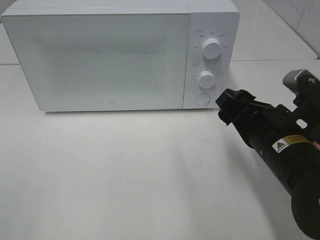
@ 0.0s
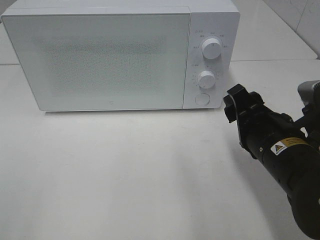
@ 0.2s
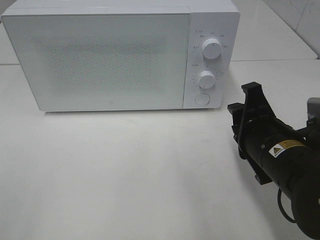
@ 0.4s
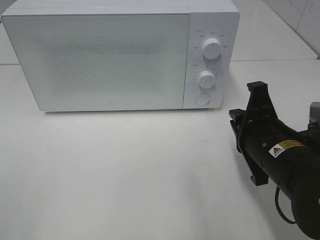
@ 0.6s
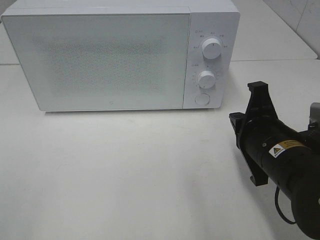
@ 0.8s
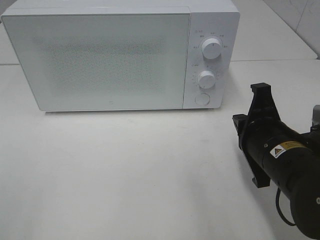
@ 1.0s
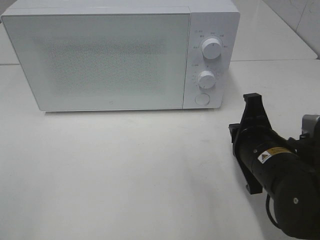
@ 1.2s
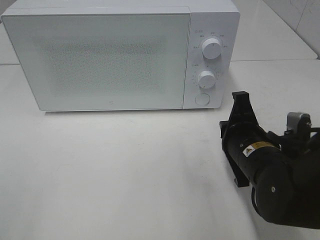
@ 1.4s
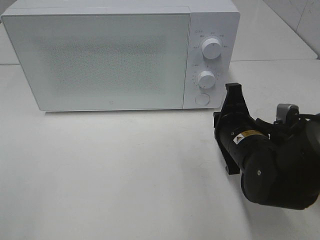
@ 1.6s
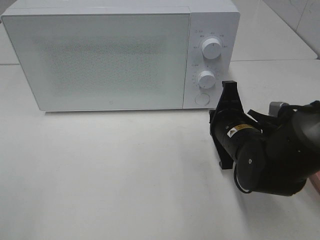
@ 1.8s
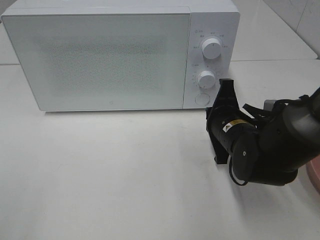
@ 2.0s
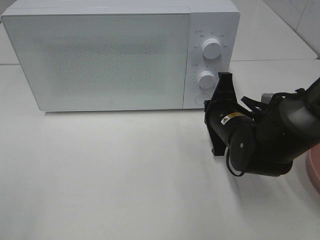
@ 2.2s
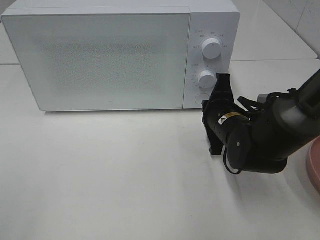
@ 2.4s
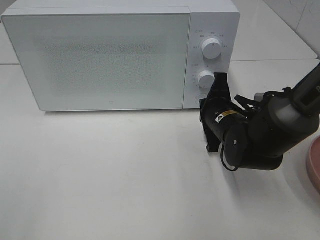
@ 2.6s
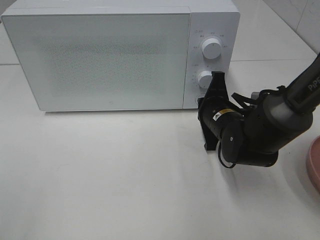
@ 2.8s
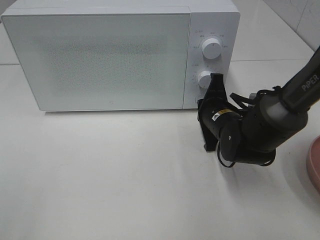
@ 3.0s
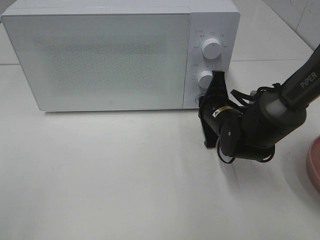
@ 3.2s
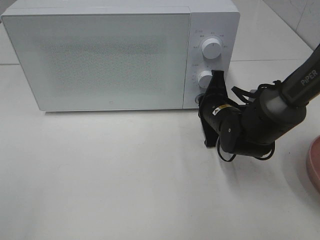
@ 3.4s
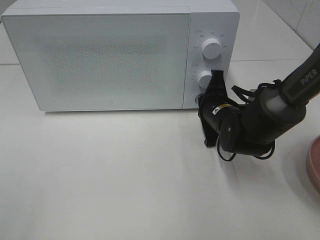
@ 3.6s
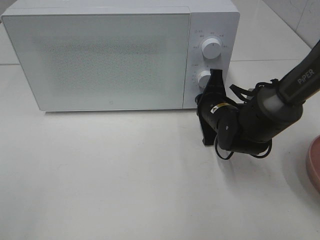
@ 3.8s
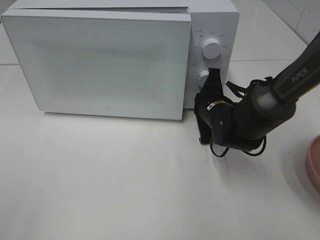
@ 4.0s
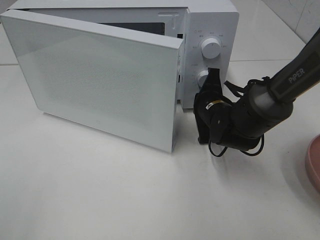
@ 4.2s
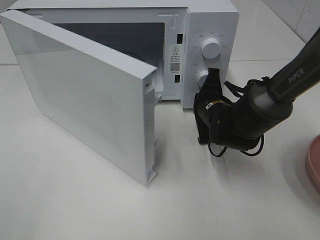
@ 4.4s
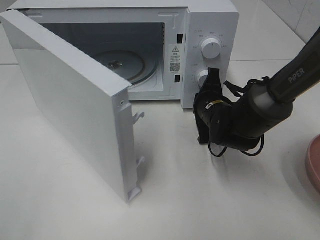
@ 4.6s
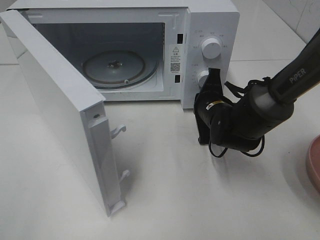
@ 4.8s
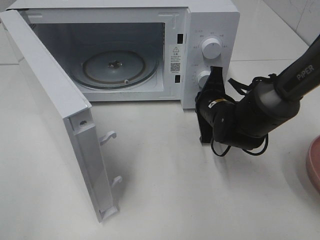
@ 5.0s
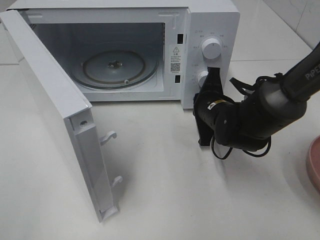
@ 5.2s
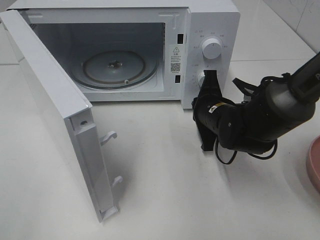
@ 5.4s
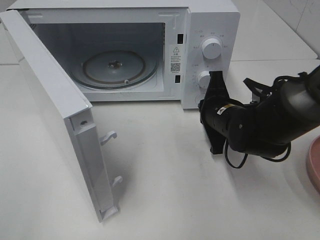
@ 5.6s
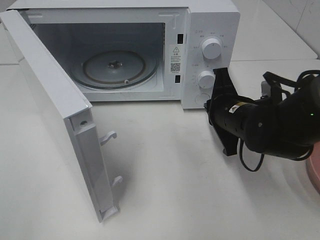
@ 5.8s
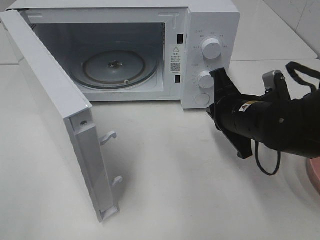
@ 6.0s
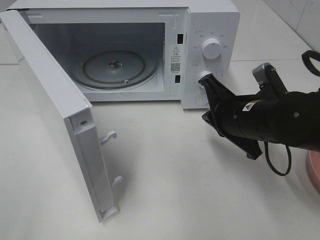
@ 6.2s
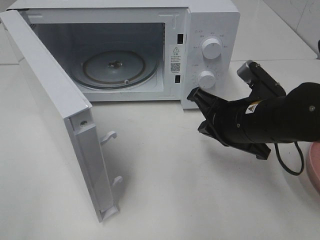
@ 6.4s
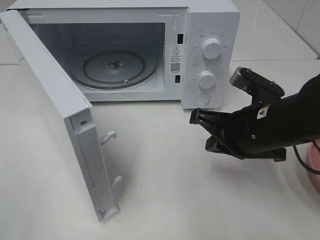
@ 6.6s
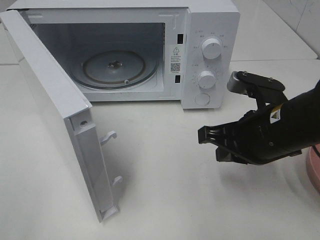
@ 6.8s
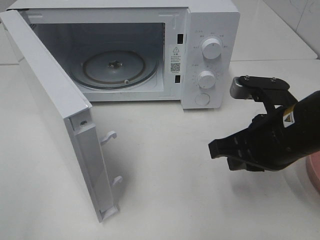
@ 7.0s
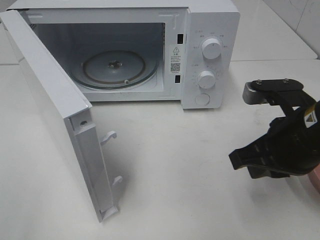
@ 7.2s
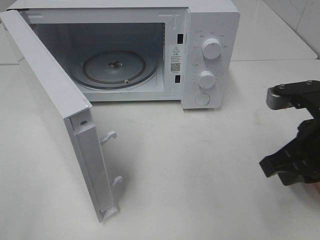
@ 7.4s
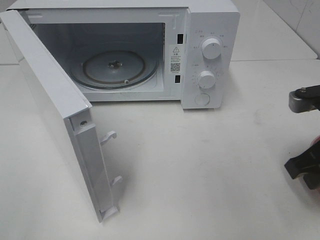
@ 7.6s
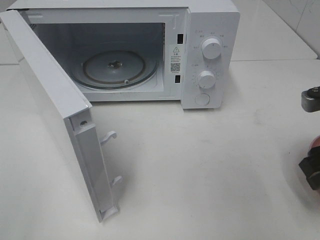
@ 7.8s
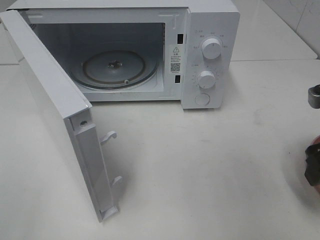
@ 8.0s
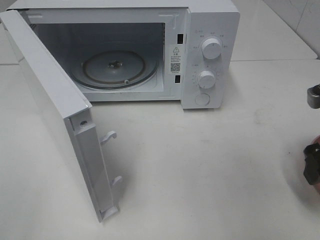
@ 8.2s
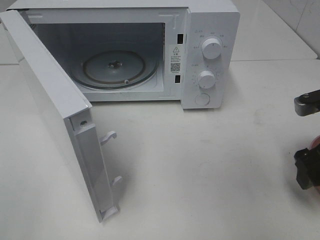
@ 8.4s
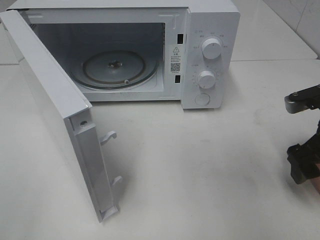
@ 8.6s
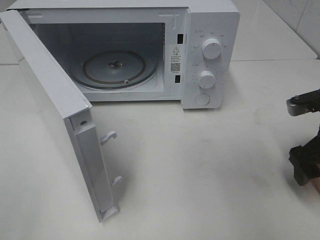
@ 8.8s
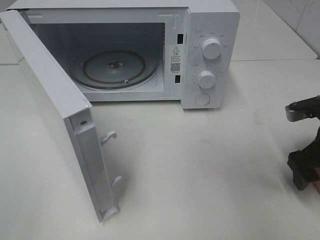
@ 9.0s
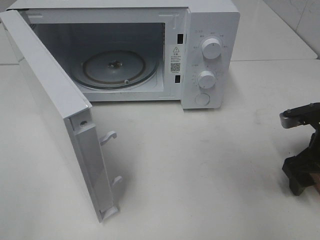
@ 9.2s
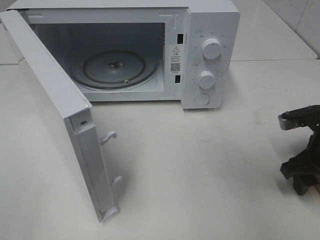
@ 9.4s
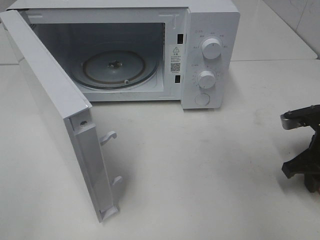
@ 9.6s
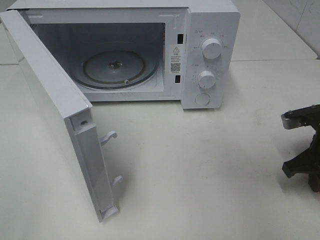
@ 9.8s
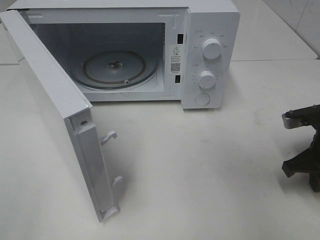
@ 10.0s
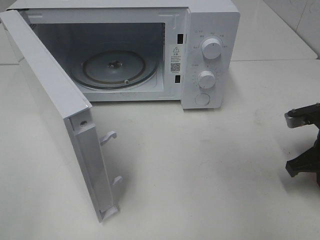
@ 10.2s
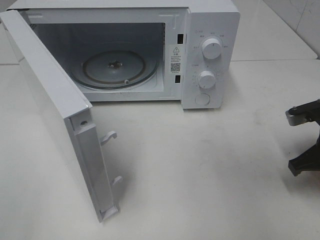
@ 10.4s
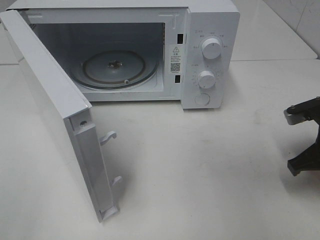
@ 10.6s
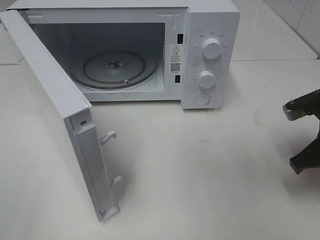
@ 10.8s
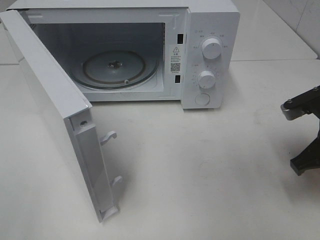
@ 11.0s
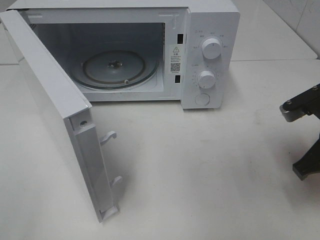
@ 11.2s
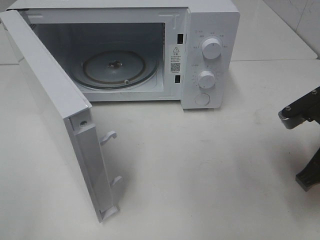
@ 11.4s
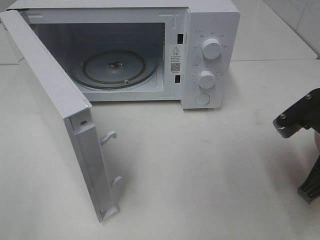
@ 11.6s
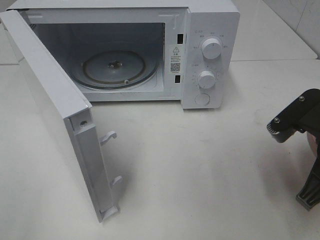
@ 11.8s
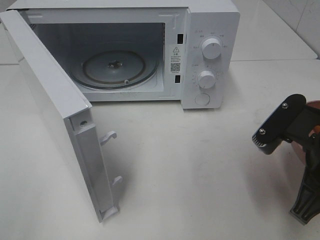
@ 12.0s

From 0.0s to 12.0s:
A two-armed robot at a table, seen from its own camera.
Task of the whole recording: Heat the burger.
Step, from 0.0s to 5.4s: Right hand: press the switch.
Step, from 5.6s to 11.2s: Right hand: grab the plate with the hamburger.
From 0.0s to 1.6s: The right gripper moves some 5 cm, and closes its fingers.
From 1.6s to 3.0s: The right gripper travels forward by approximately 10 cm.
From 4.4s to 6.0s: The right gripper is displaced backward and upward by some 10 cm.
From 6.0s to 7.6s: The right gripper heads to the right, backward and upward, covering approximately 15 cm.
From 7.6s to 9.0s: The right gripper shifts roughly 10 cm downward and forward, and opens.
From 9.0s to 10.4s: The right gripper closes up.
From 10.4s to 12.0s: The right gripper moves backward, to the left and upward, about 15 cm.

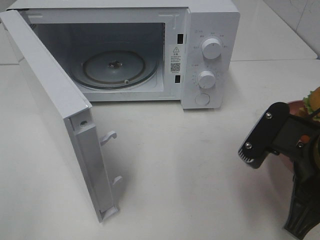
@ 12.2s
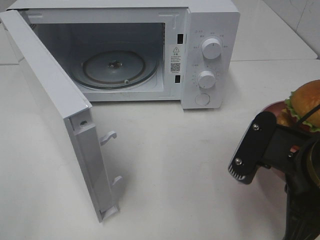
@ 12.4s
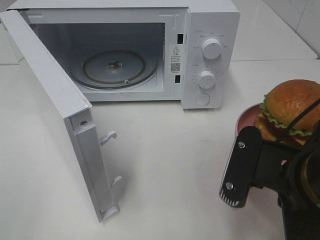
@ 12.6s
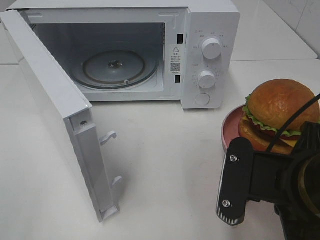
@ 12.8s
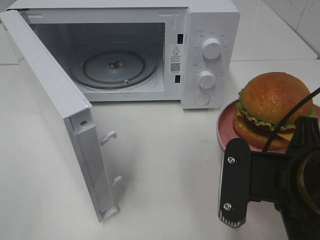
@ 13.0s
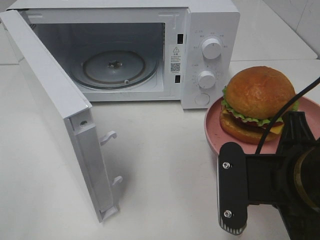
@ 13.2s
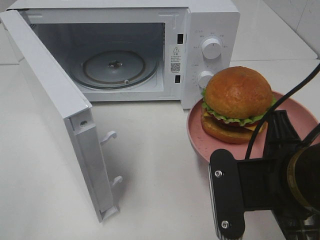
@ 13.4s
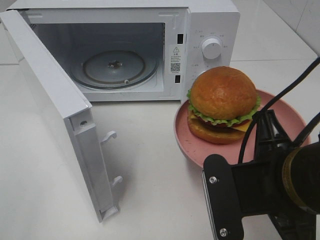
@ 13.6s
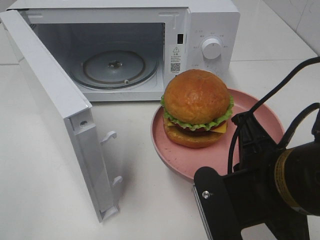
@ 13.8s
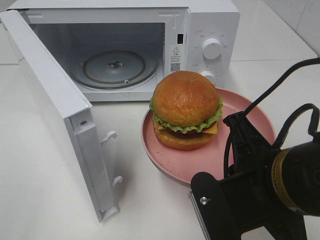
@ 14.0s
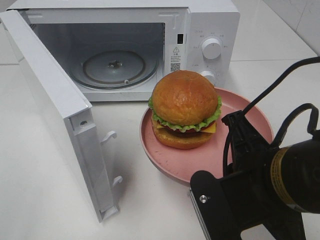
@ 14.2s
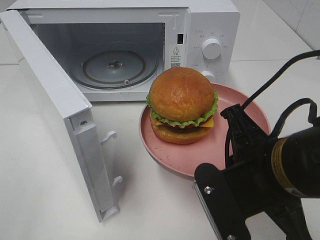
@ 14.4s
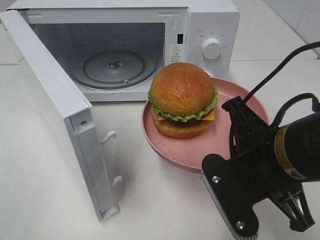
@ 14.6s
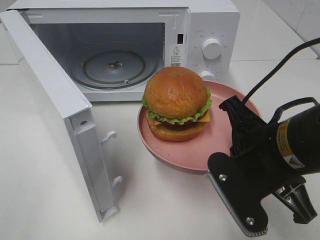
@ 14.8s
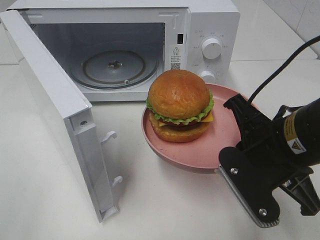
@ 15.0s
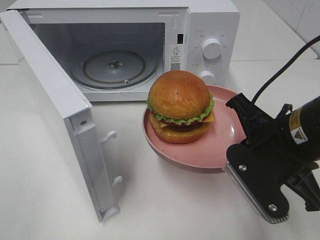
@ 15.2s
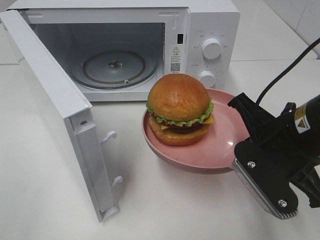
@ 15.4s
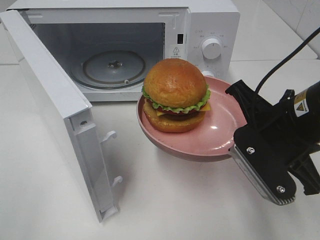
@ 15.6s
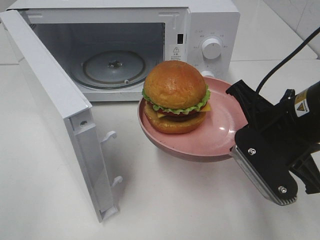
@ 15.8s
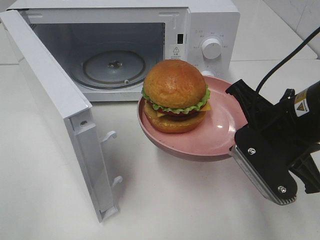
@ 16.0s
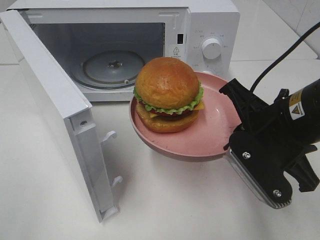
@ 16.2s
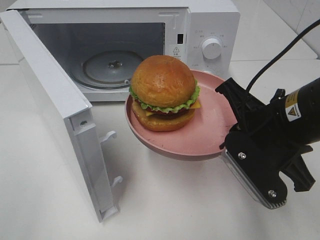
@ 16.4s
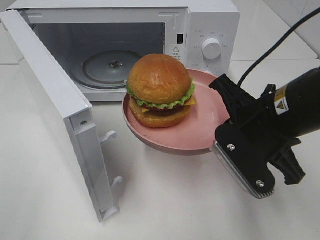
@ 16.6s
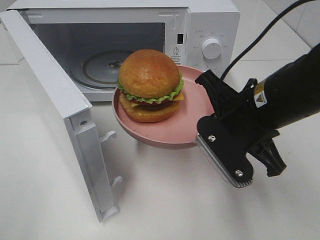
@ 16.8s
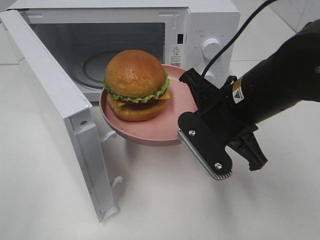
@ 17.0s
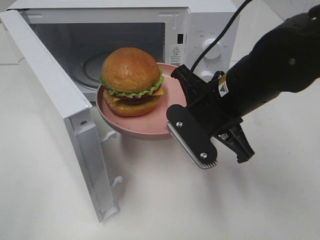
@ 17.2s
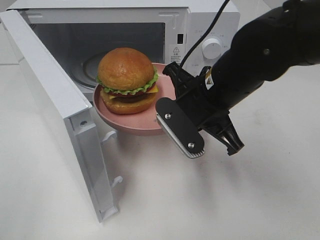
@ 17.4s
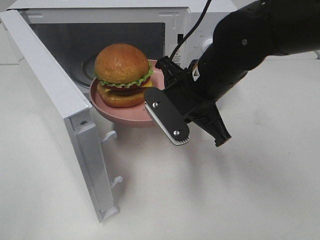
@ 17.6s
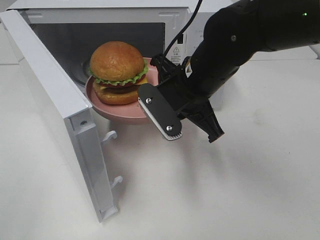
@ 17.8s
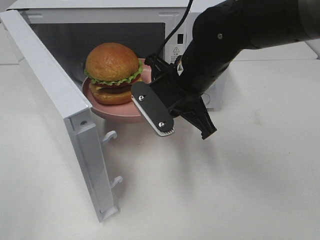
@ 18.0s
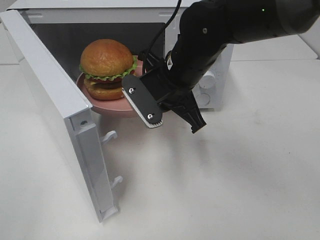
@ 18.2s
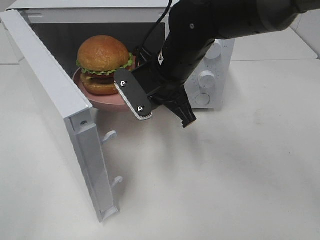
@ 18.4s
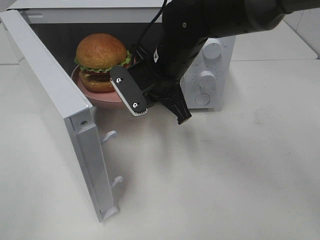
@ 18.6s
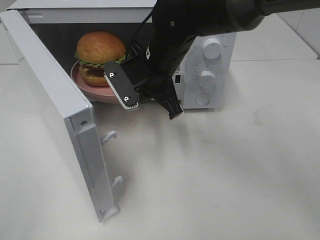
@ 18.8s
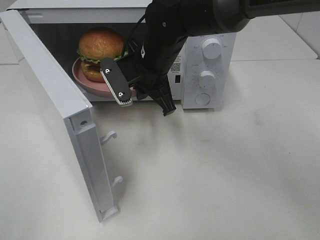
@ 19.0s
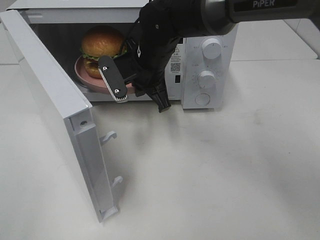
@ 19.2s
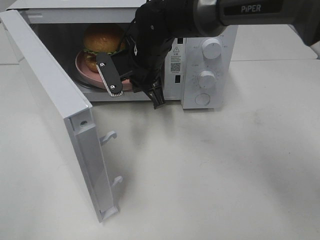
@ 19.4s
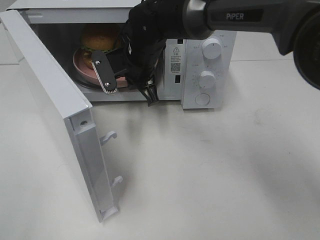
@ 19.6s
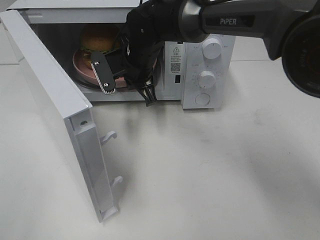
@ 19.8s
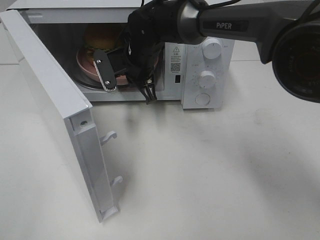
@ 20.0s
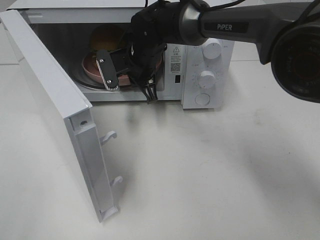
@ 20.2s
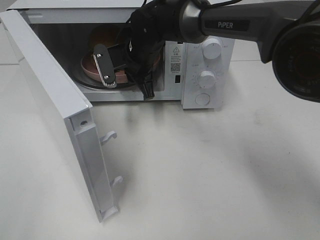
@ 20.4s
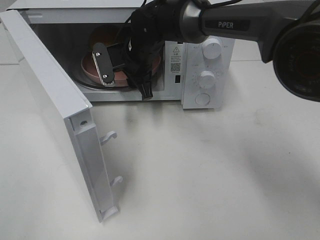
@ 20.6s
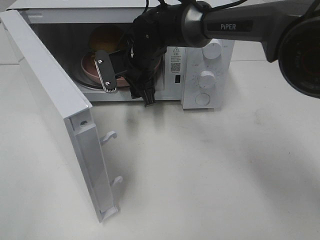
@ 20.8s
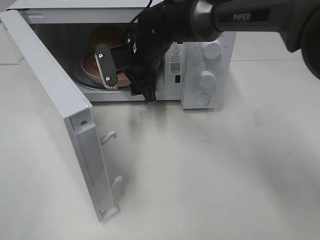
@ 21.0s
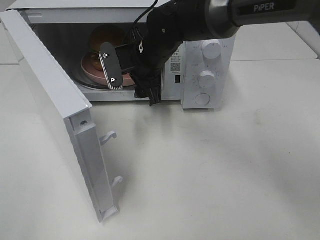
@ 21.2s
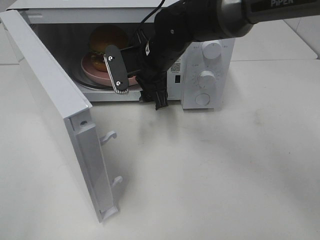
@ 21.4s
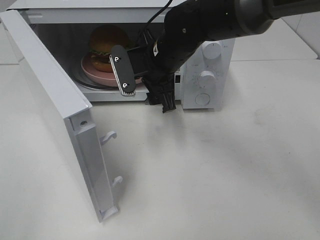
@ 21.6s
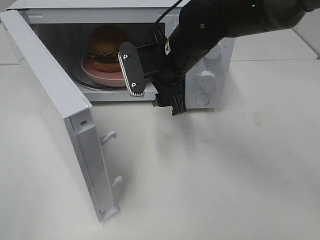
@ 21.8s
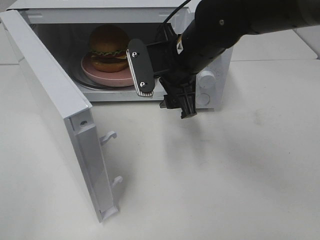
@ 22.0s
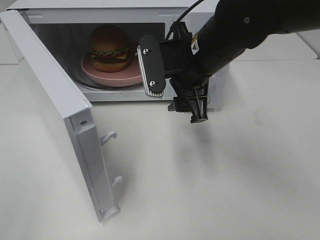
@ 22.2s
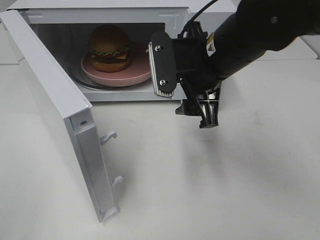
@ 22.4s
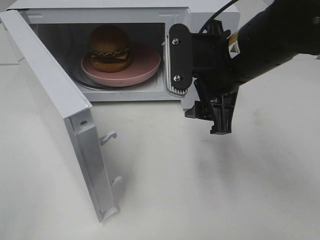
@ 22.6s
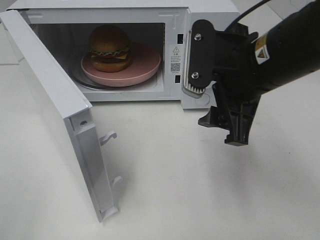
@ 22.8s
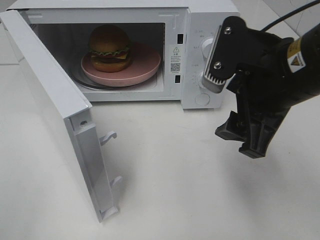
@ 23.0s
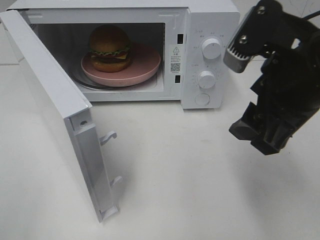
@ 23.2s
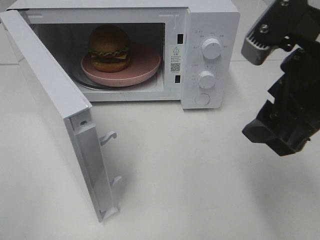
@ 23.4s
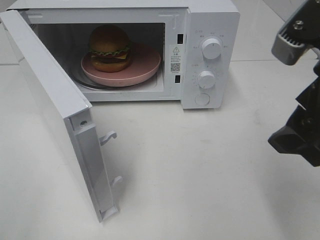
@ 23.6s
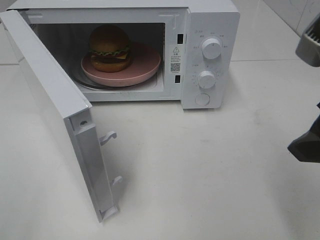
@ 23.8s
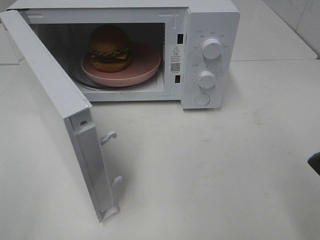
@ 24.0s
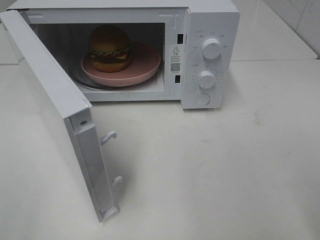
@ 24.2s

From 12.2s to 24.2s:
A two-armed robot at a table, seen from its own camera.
Task of the whole recording: Heat the burger.
Step, from 12.2s to 20.6s: Right hand: place the plate in the microwave.
From 12.2s to 13.8s: The right gripper shifts some 5 cm to the left.
From 13.8s to 15.2s: The right gripper travels forward by about 5 cm.
From 15.2s to 16.6s: The grippers move only a little.
From 16.6s to 18.2s: The right gripper moves forward and to the left, roughly 15 cm.
From 18.2s to 19.8s: The right gripper travels forward and to the left by some 10 cm.
From 19.8s to 21.2s: The right gripper opens.
From 21.2s to 22.6s: The right gripper is displaced backward, to the right and upward by some 20 cm.
From 22.6s to 24.2s: The right gripper shifts some 20 cm backward and to the right.
